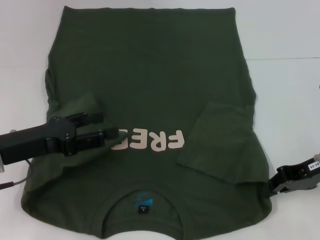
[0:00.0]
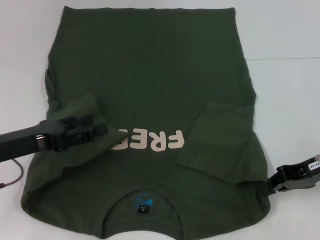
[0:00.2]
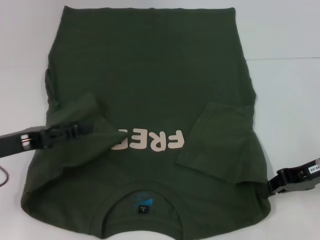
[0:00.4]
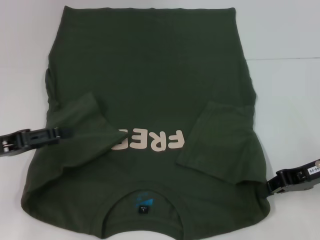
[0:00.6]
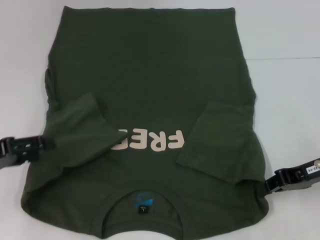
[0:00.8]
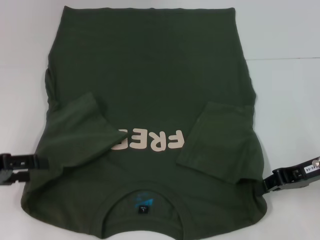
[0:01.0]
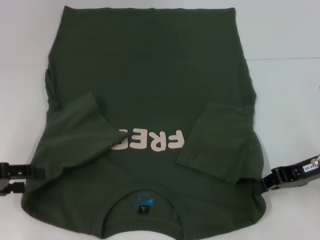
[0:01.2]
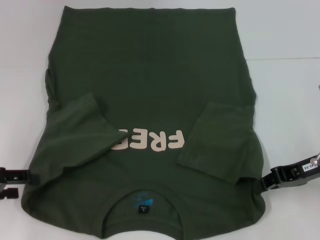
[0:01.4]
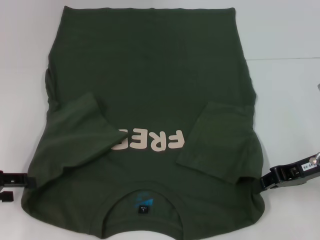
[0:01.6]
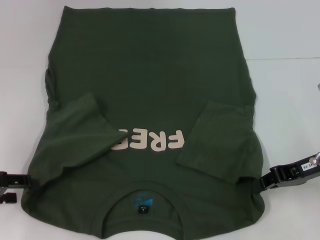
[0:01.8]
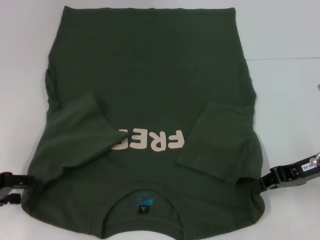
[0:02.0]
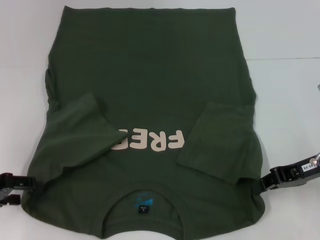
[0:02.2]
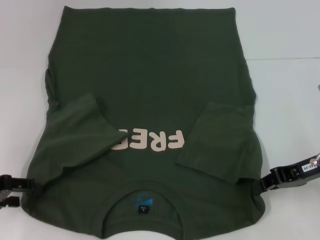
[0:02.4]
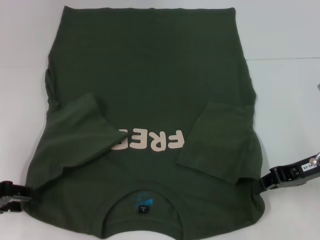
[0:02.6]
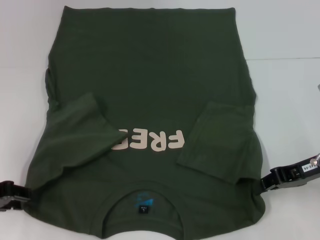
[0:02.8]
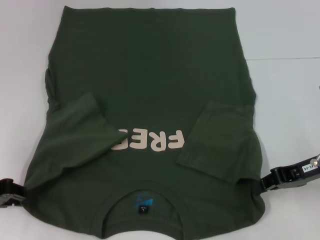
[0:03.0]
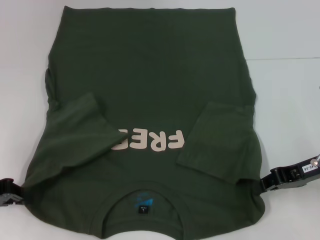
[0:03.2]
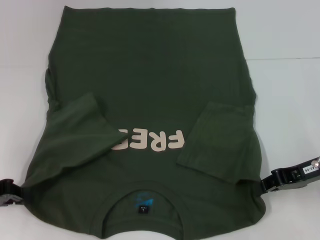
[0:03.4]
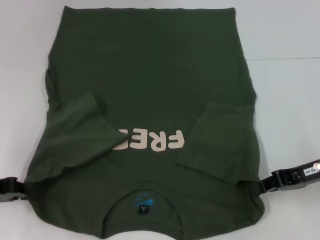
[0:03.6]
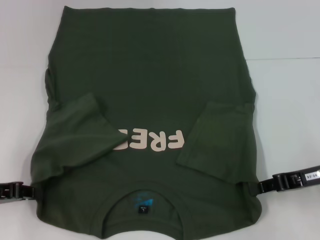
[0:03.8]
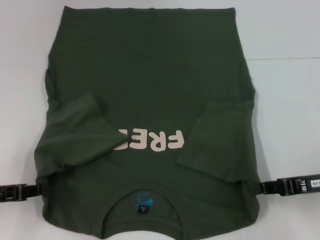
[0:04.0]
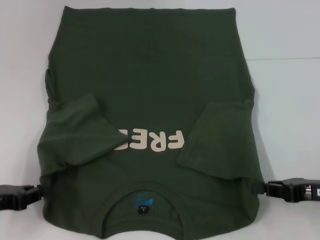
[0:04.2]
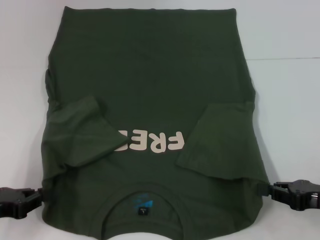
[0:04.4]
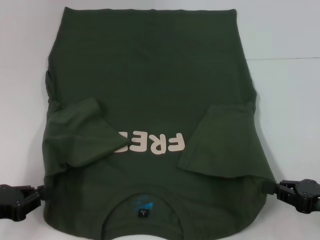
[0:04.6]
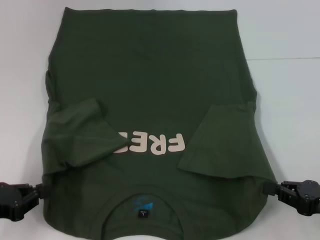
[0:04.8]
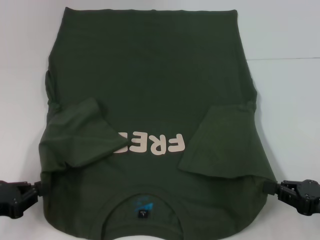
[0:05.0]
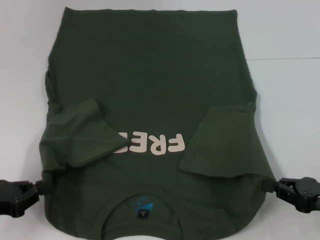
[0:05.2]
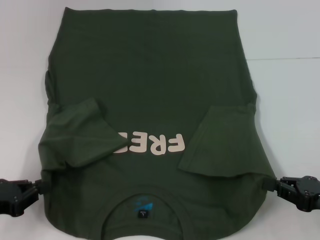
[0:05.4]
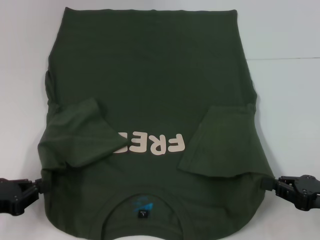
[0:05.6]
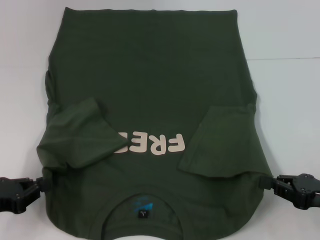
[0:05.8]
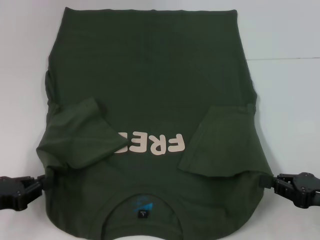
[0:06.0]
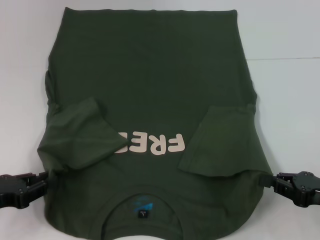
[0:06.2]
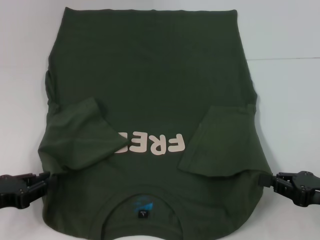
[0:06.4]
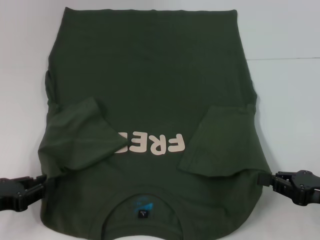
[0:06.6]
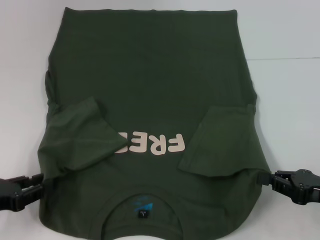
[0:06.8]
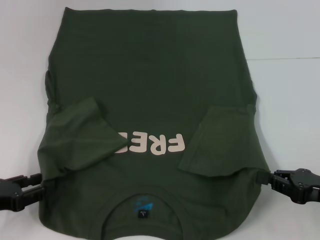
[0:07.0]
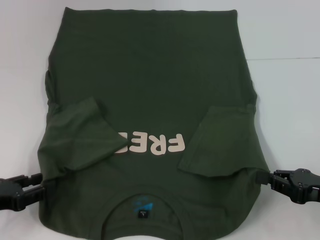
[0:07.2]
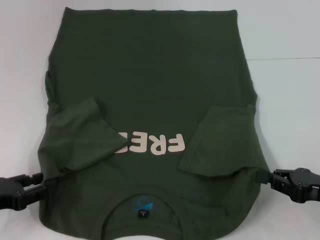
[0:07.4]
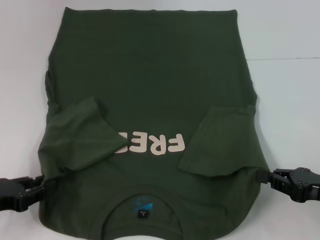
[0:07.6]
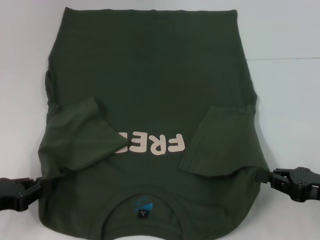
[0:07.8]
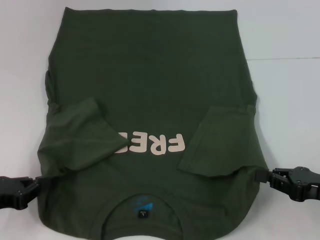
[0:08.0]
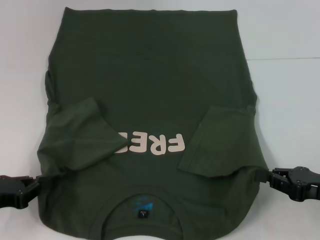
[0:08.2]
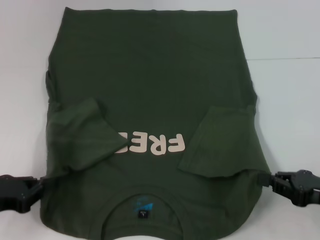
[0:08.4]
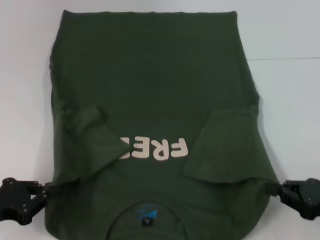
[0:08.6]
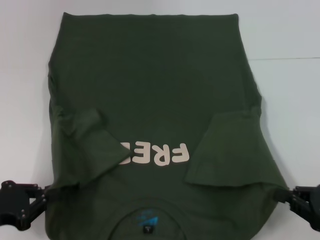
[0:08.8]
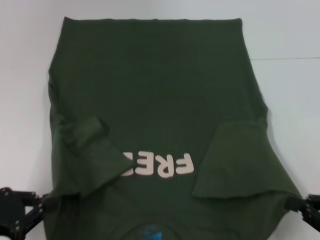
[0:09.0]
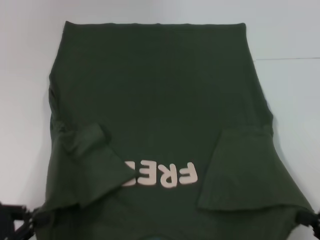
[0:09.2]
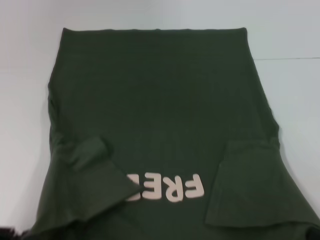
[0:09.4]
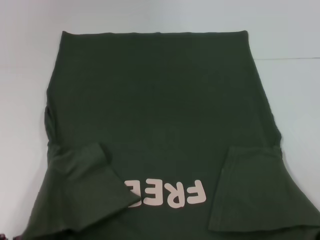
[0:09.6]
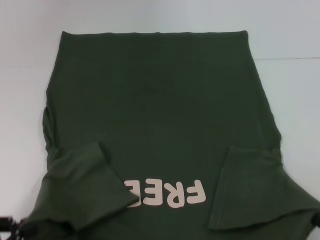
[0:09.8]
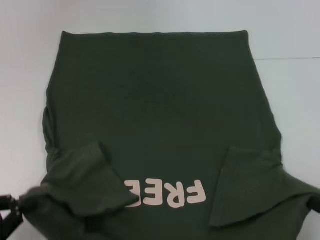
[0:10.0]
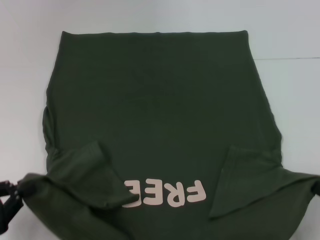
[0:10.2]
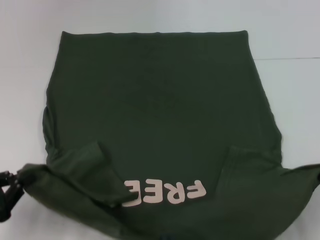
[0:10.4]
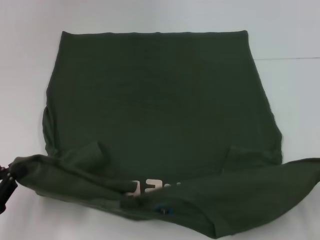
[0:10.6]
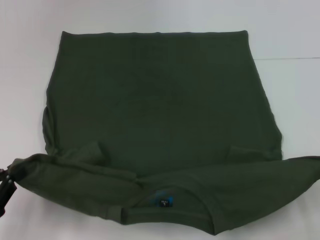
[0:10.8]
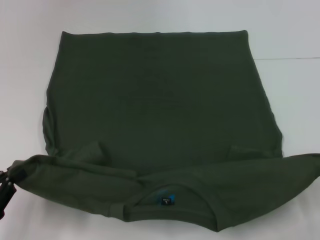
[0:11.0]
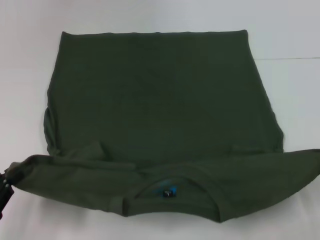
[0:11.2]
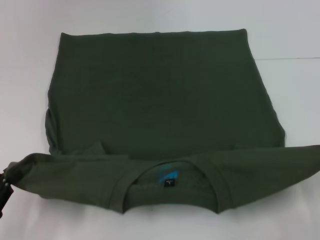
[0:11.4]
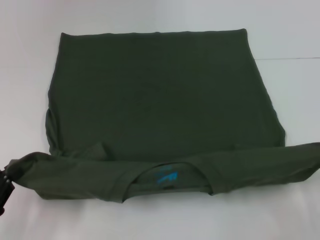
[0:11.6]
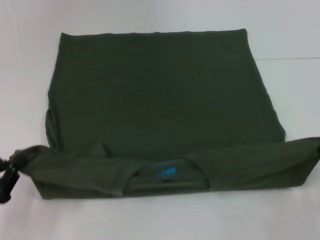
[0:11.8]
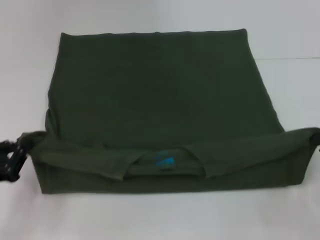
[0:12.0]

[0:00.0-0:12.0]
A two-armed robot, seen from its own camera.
Step, 0:00.0 to 0:04.4: Grab the bottom left corner with your left hand.
0:00.0 to 0:01.6: The left gripper moves to the left, approximately 10 cm.
0:01.6 to 0:03.0: The left gripper closes.
0:03.0 to 0:04.4: The left gripper changes place by some 5 cm, and closes its fingers. Meanwhile the right gripper moves backward, roughly 10 cm.
0:04.4 to 0:06.0: The grippers stay close to where they were, moving slightly.
0:06.0 to 0:07.6: The left gripper opens.
0:07.6 to 0:09.0: The right gripper goes roughly 5 cm backward. The left gripper closes its fingers.
0:09.0 to 0:10.4: The right gripper travels backward and back again, some 10 cm each way.
0:10.4 to 0:12.0: The right gripper moves forward, some 5 cm.

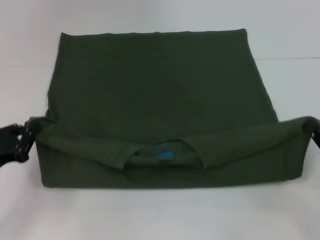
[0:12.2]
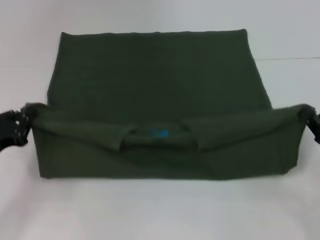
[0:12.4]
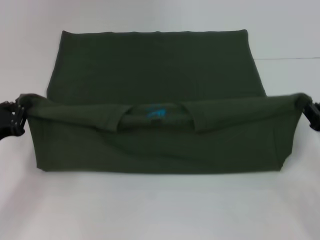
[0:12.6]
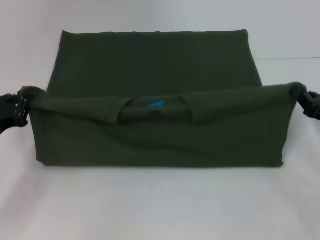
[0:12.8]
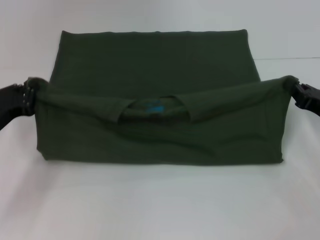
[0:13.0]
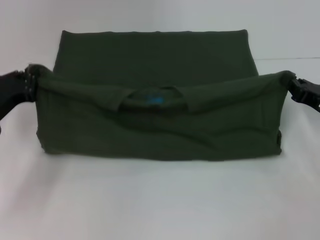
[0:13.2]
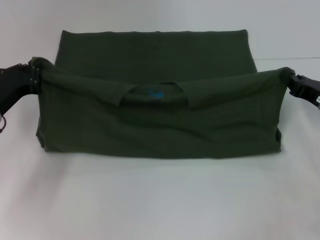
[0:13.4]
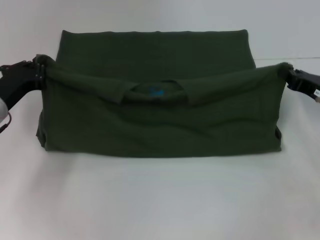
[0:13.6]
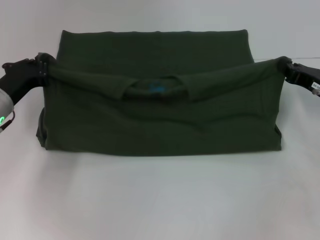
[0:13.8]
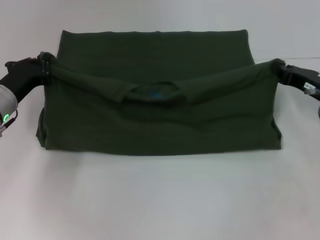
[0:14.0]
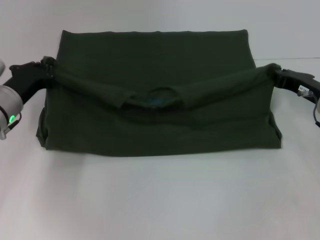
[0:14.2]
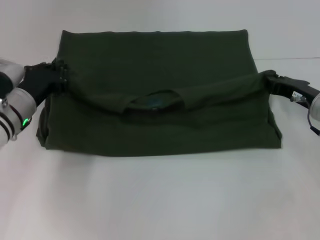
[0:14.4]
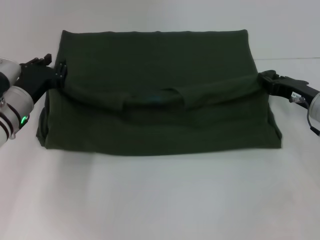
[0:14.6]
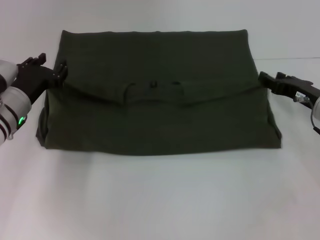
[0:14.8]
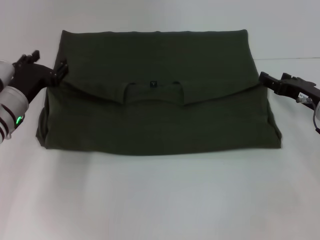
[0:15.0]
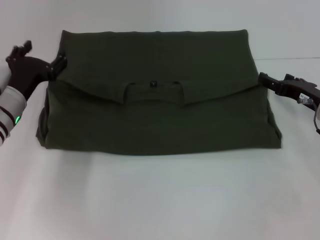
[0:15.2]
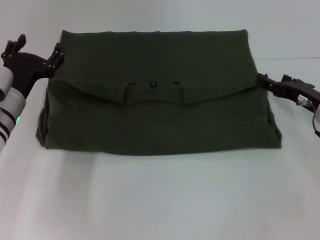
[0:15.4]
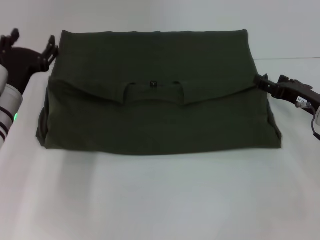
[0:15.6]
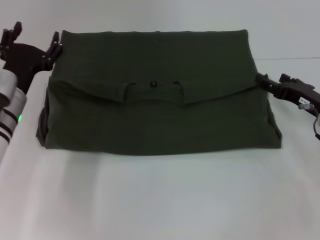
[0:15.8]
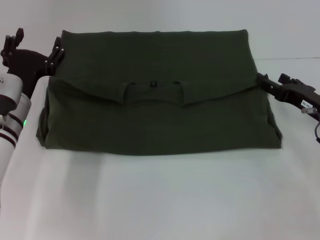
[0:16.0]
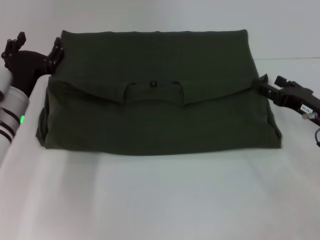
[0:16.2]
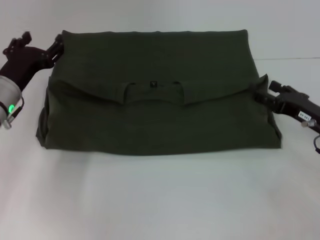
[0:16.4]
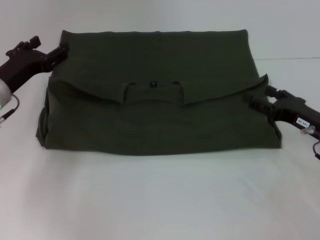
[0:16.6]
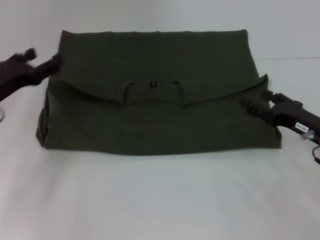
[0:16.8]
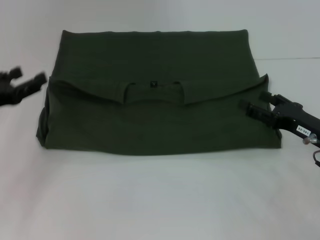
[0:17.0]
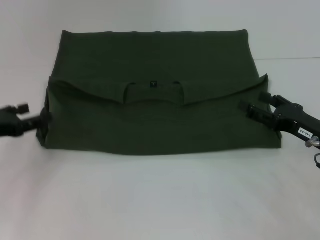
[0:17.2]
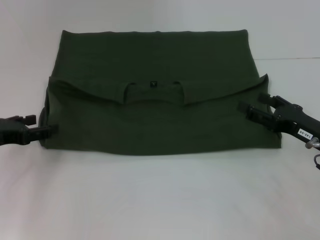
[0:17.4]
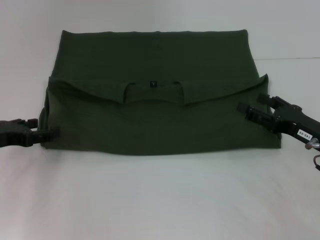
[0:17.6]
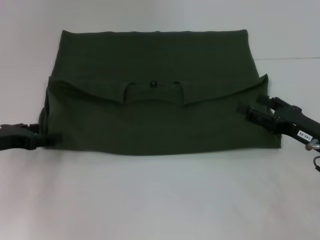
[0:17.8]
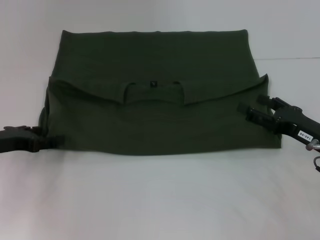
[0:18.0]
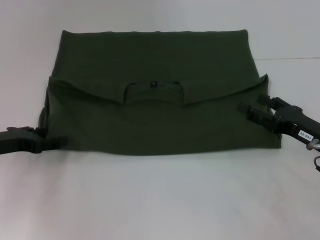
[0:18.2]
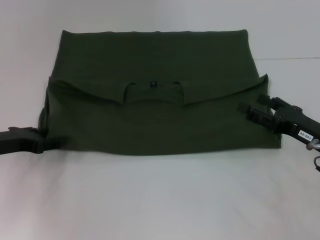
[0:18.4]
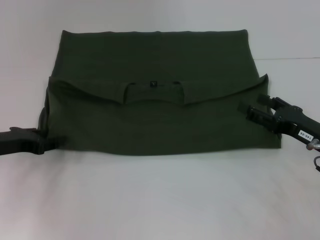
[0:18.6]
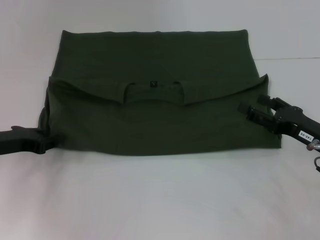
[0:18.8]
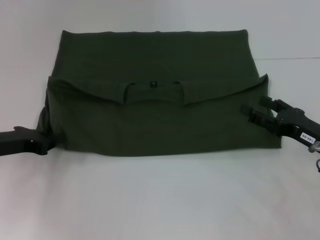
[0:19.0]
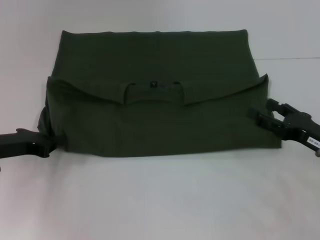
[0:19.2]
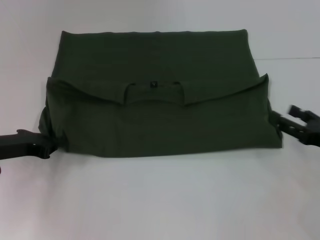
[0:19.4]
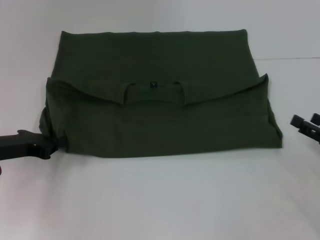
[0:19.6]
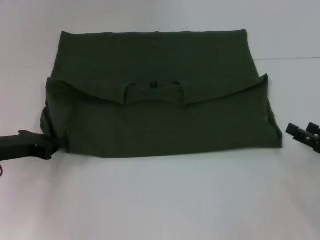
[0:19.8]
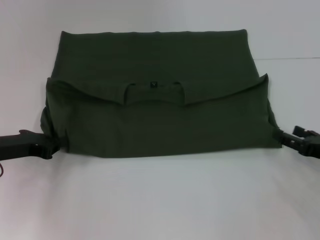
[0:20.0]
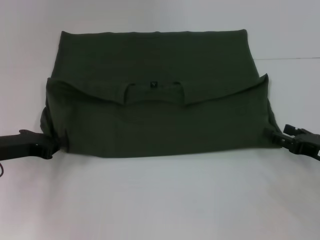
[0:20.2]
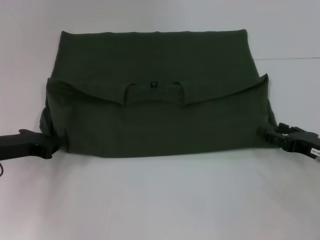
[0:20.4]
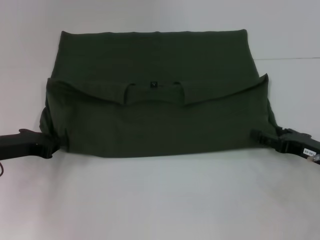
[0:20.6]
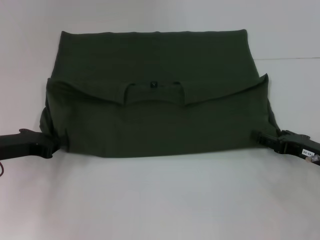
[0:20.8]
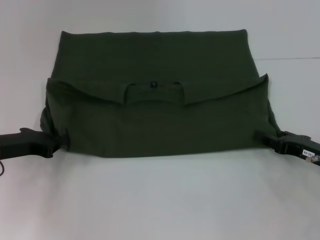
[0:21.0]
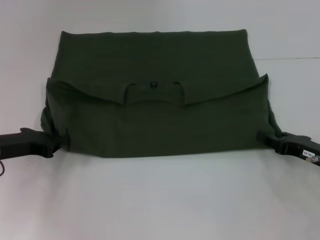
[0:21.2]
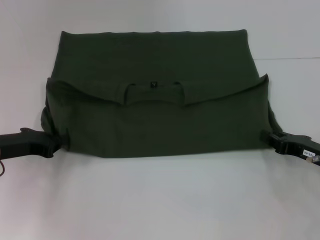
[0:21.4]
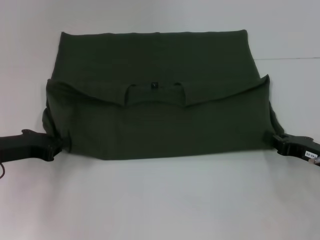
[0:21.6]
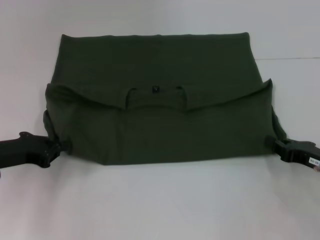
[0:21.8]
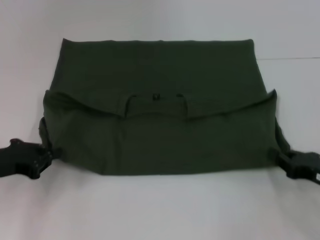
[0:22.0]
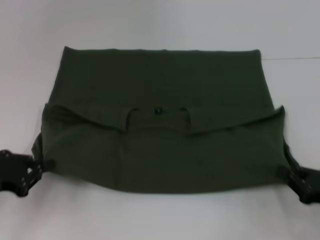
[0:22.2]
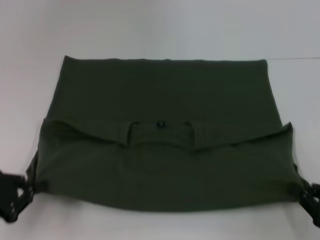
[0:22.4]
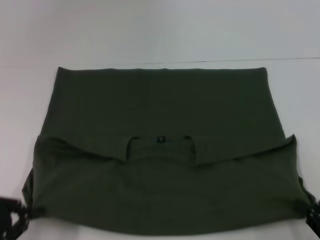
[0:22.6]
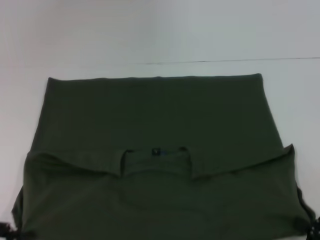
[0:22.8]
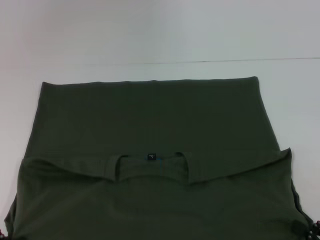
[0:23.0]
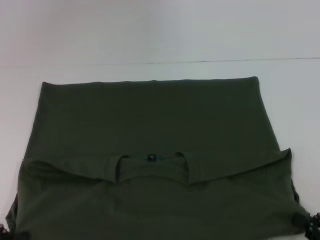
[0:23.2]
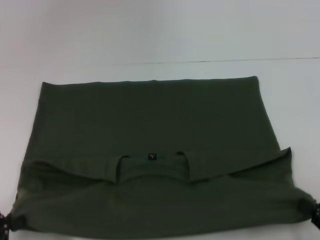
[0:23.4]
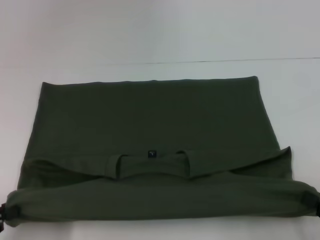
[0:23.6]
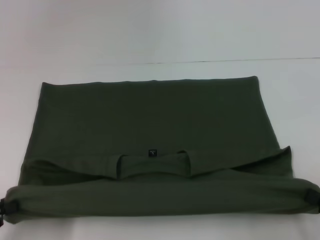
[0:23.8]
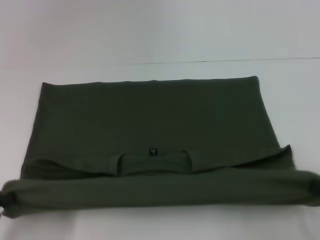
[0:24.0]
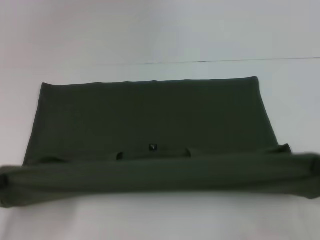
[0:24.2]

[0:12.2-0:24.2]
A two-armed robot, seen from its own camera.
Step, 0:12.2 to 0:15.6: Fold the clothes with your left hand.
Step, 0:12.2 to 0:15.6: Fold the clothes with your right hand.
Step, 0:15.8 to 0:23.0: Pull the clothes with your left hand.
Step, 0:15.8 to 0:23.0: Pull the clothes with your right hand.
0:12.2 to 0:13.8: Both grippers travel together forward, about 15 cm.
0:13.8 to 0:15.2: The right gripper opens its fingers. The left gripper opens its fingers.
0:15.2 to 0:16.6: The right gripper shifts roughly 5 cm backward.
0:16.6 to 0:18.2: The left gripper ends up approximately 5 cm from where it was.
0:18.2 to 0:19.8: The right gripper goes some 5 cm to the right. Meanwhile the left gripper closes.
0:19.8 to 0:21.2: The right gripper changes place by some 5 cm.
0:21.2 to 0:22.6: The grippers both shift backward by about 15 cm. The right gripper closes up.
0:22.6 to 0:24.2: The right gripper moves upward, roughly 5 cm.
